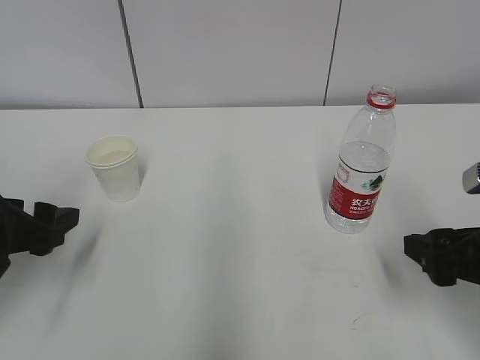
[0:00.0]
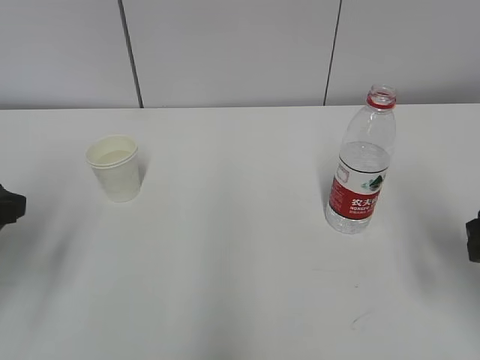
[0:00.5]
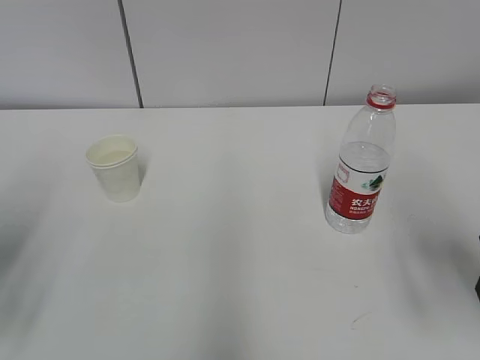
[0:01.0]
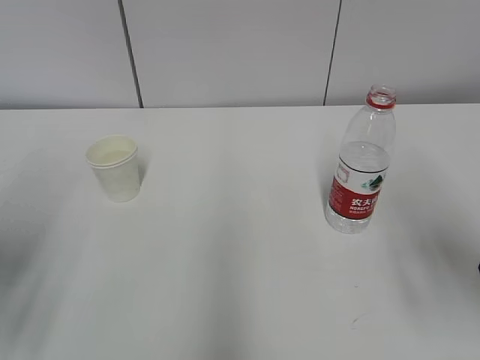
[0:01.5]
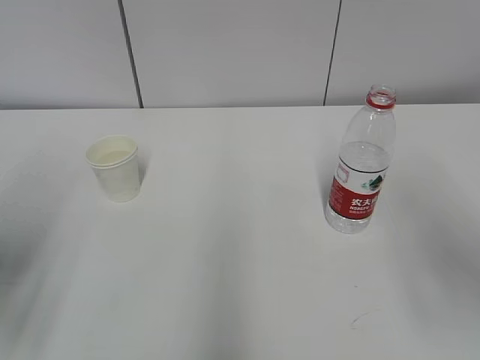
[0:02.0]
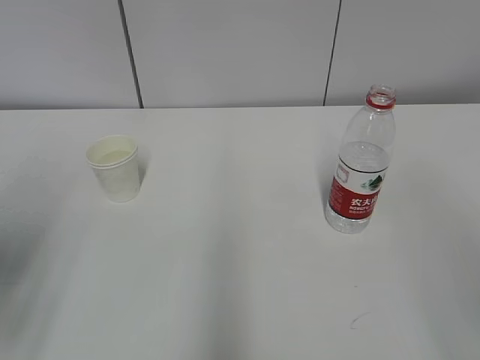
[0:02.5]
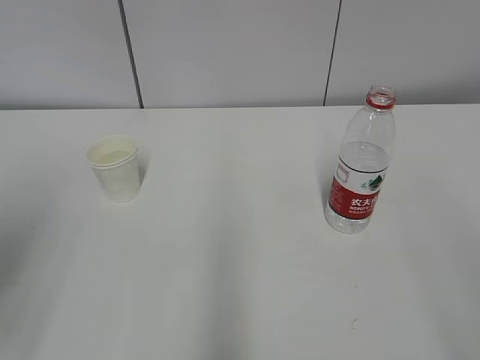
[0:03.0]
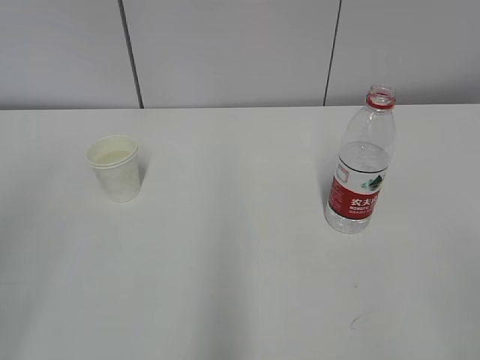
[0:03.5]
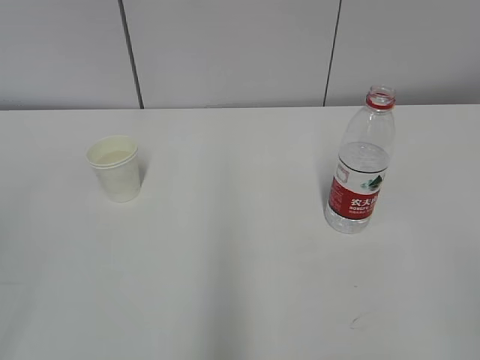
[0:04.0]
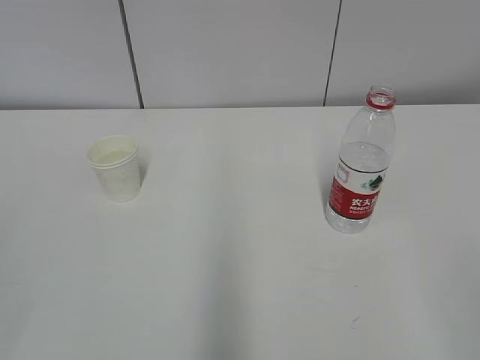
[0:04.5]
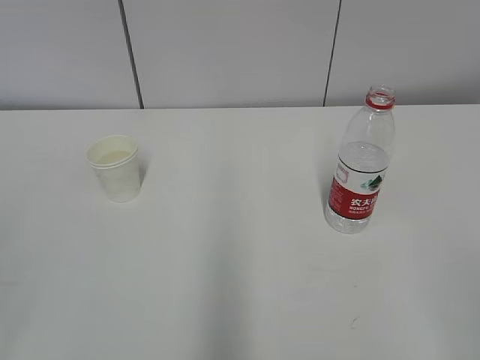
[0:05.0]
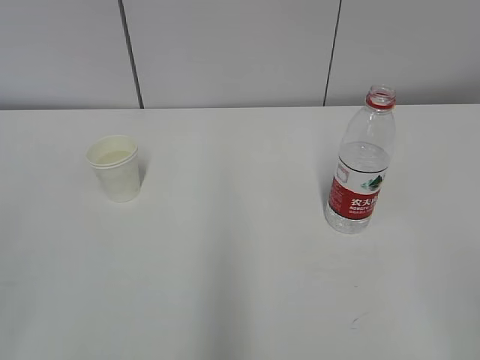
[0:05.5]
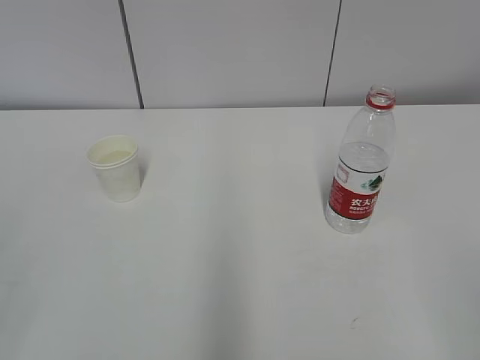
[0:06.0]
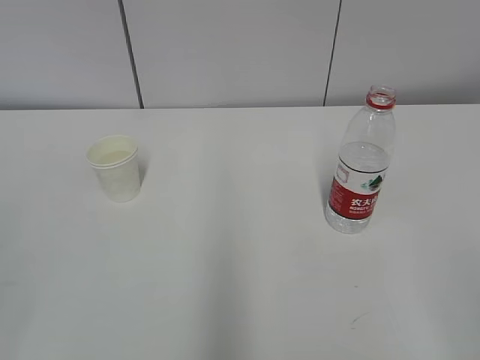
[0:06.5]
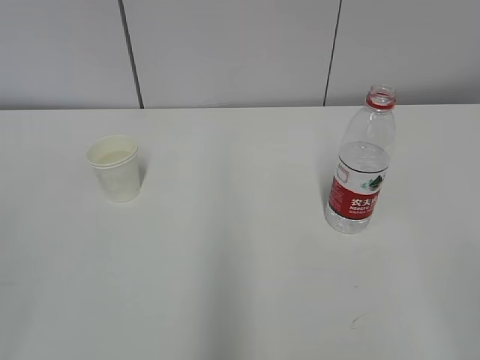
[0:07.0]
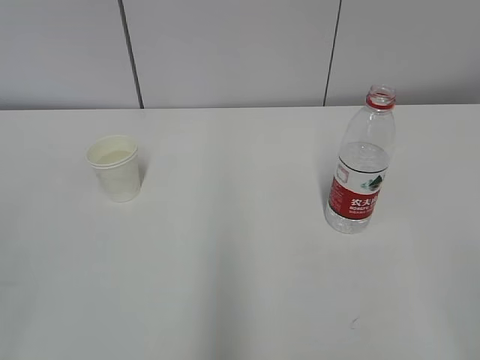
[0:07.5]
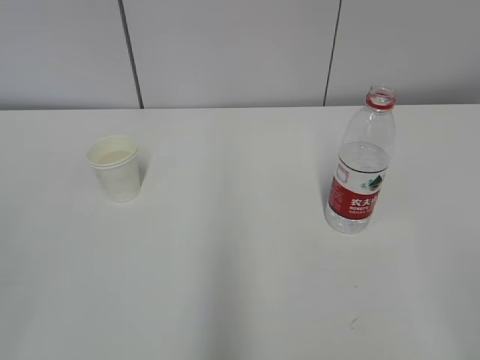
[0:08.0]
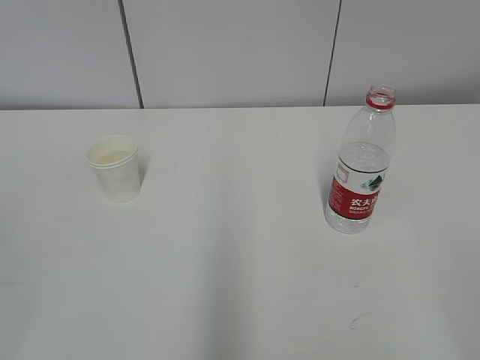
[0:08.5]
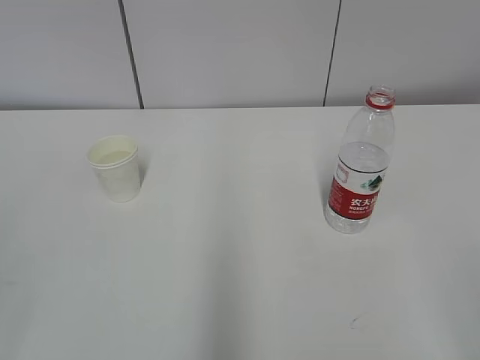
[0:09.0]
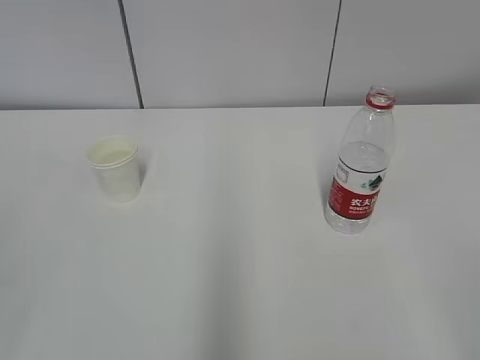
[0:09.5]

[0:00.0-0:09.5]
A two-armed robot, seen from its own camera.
0:00.0 to 0:02.0: The right gripper shifts roughly 15 cm upward, while the left gripper goes approximately 10 cm upward and backward.
0:02.0 to 0:04.0: The left gripper goes roughly 15 cm backward.
0:05.5 to 0:09.5: Both grippers stay about where they are.

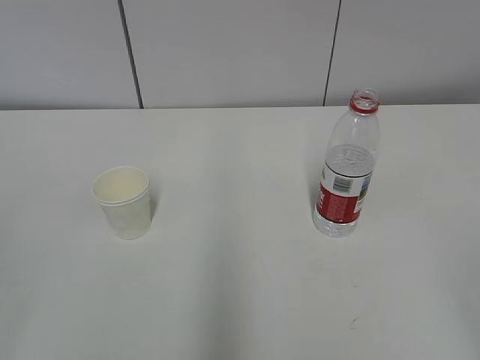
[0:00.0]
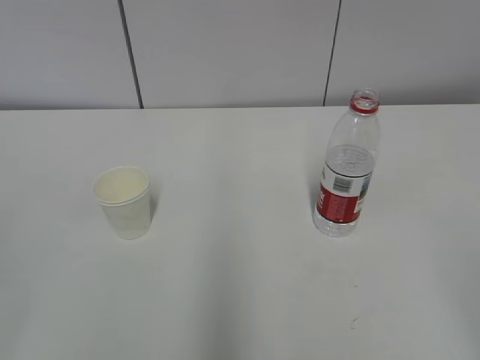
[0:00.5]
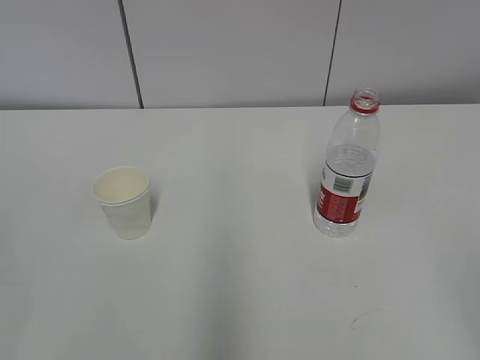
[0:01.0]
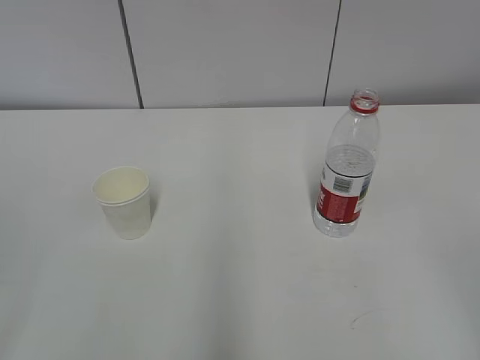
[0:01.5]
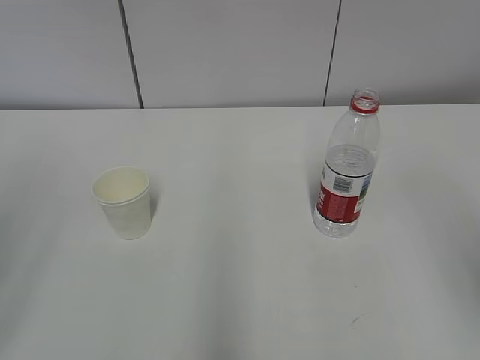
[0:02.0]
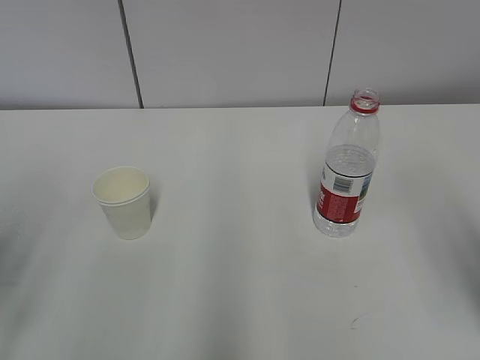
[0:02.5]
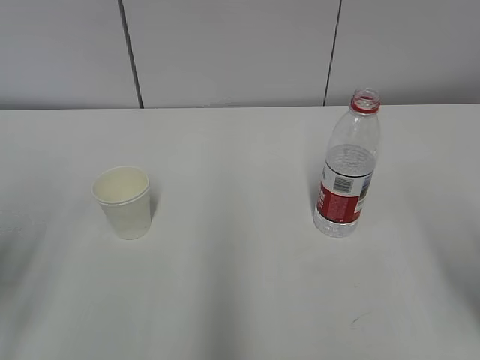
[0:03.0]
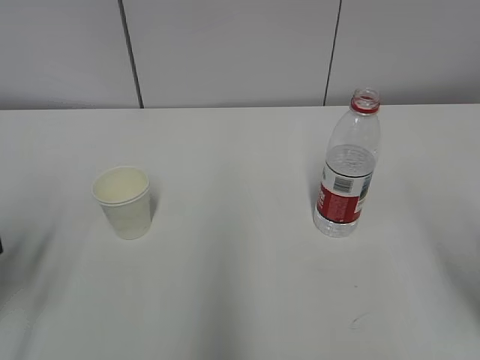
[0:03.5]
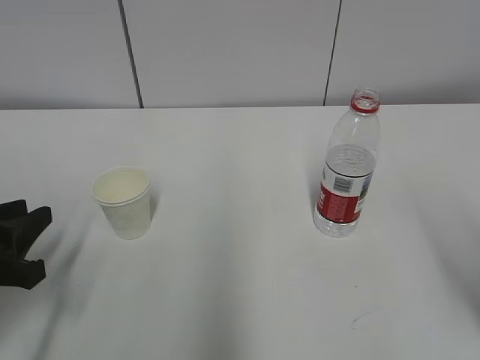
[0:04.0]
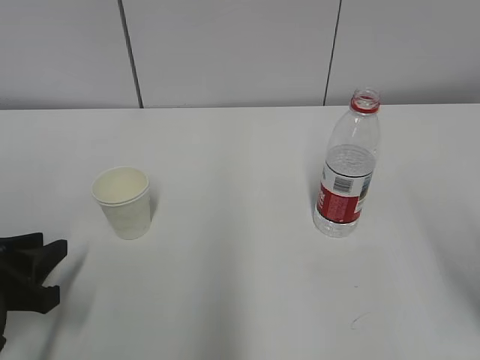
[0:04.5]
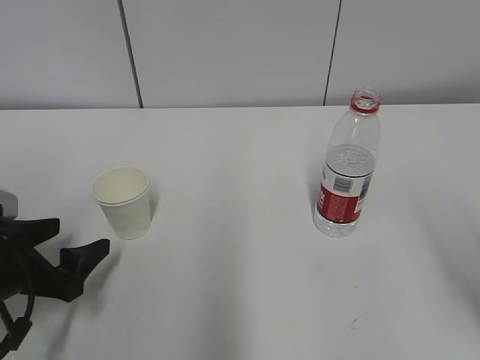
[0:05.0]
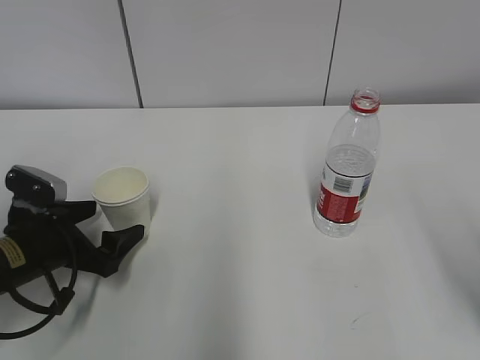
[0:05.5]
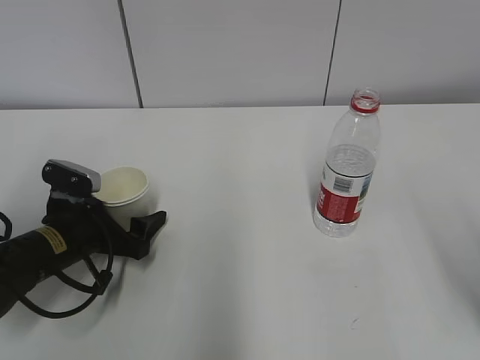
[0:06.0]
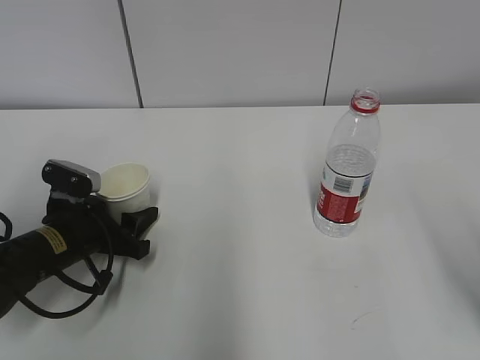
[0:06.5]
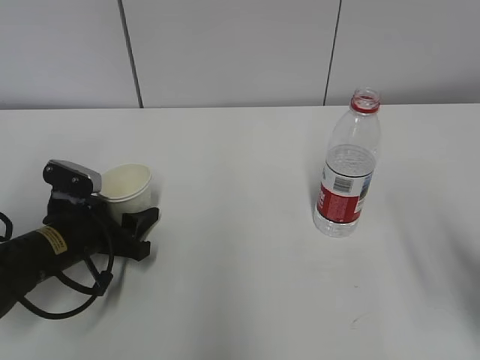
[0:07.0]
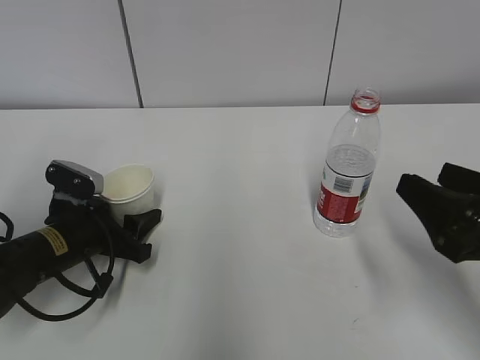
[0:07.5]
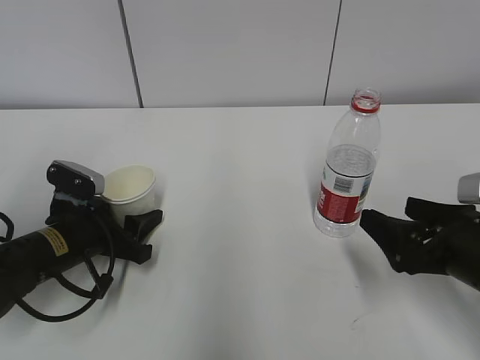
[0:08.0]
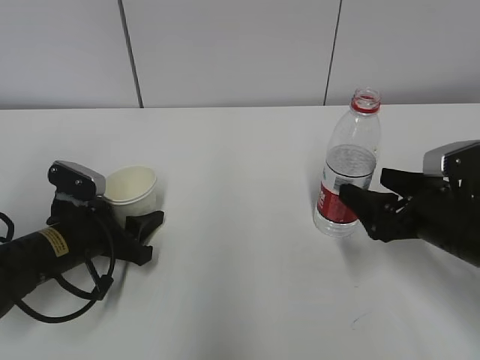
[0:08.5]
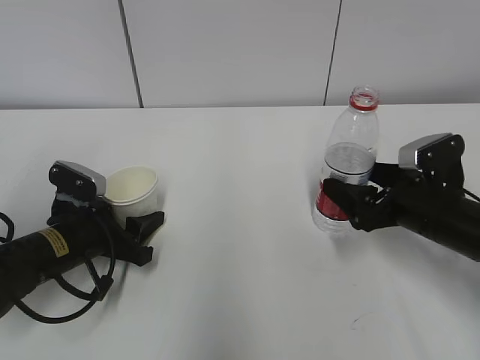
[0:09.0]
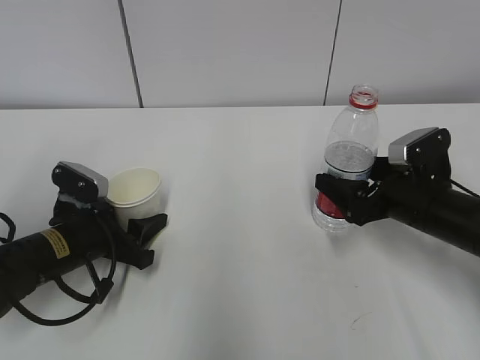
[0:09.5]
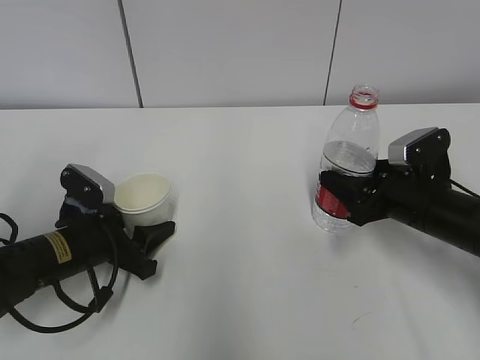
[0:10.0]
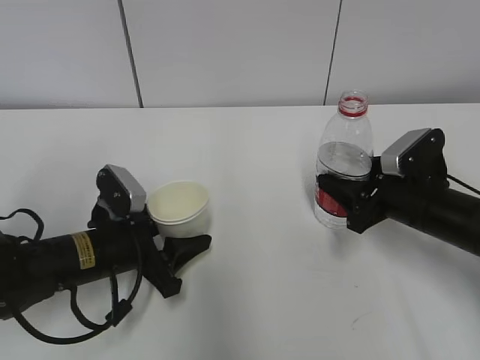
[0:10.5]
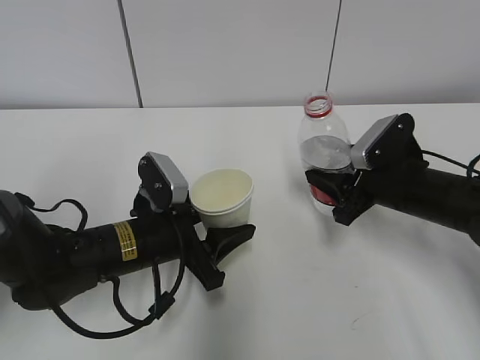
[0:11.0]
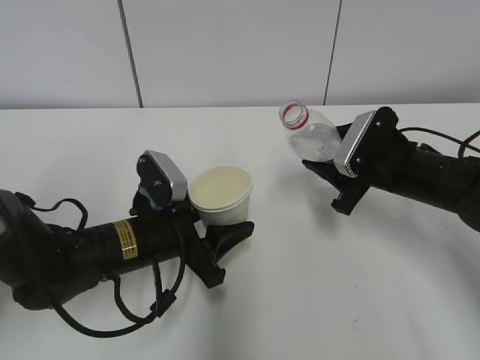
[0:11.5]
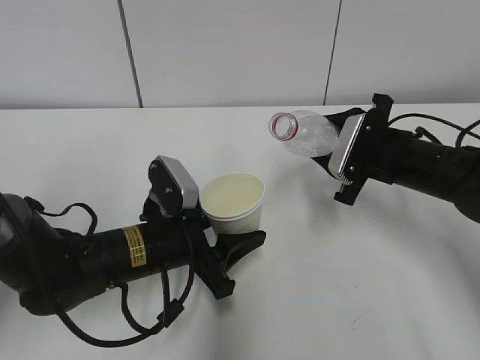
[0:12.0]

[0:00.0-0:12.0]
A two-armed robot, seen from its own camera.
Step, 0:00.0 to 0:05.5: Grab the paper cup with the left hand.
Step, 0:06.0 to 0:08.0: Grab the water bottle with the right hand.
Step, 0:08.5 to 0:11.5: Lift the paper cup with the left hand.
0:02.0 to 0:04.0: The left gripper heads downward and forward, covering about 20 cm.
0:04.0 to 0:06.0: The left gripper shifts about 15 cm forward, downward and to the right, and opens.
0:06.0 to 0:08.0: The right gripper goes approximately 15 cm downward and forward, and opens up, while the left gripper closes.
0:08.0 to 0:10.0: The right gripper heads forward, covering about 10 cm, and closes.
0:10.0 to 0:12.0: The right gripper changes place by some 5 cm; the left gripper travels to the right by about 10 cm.

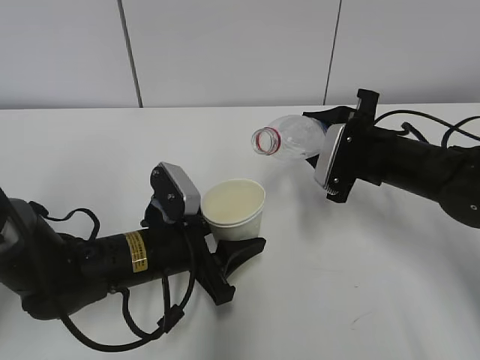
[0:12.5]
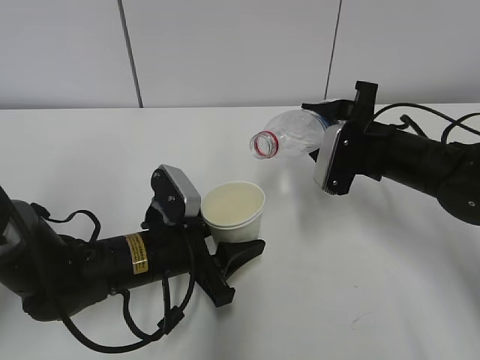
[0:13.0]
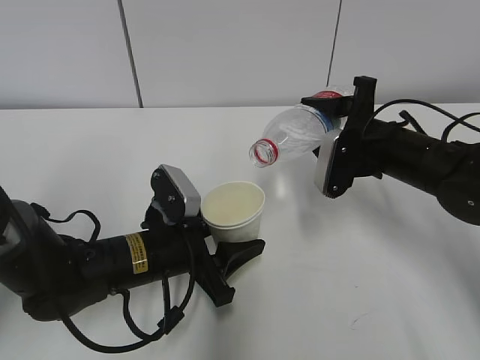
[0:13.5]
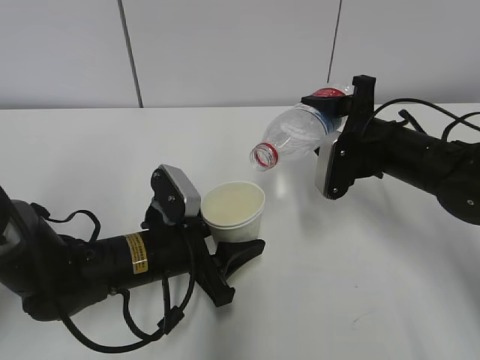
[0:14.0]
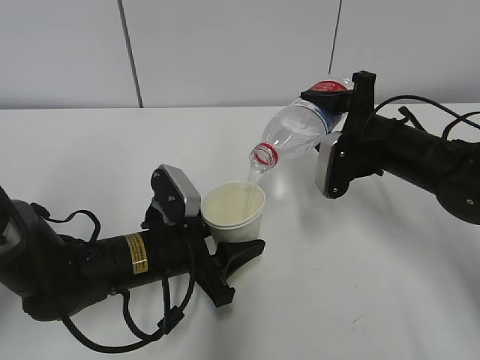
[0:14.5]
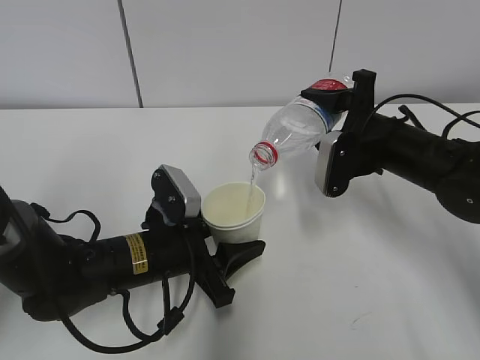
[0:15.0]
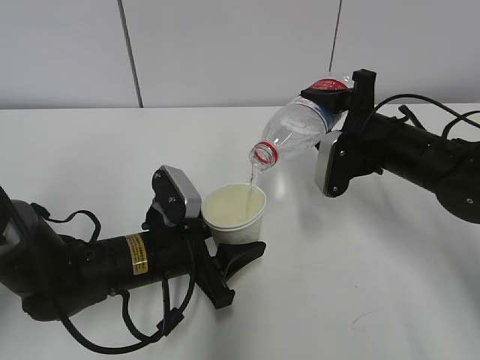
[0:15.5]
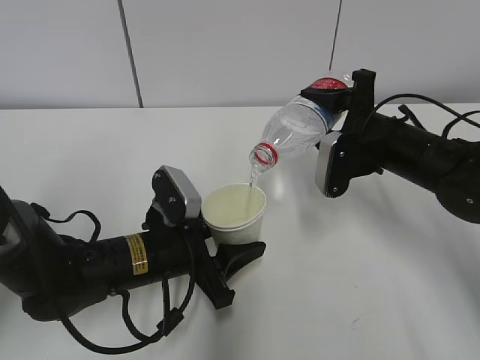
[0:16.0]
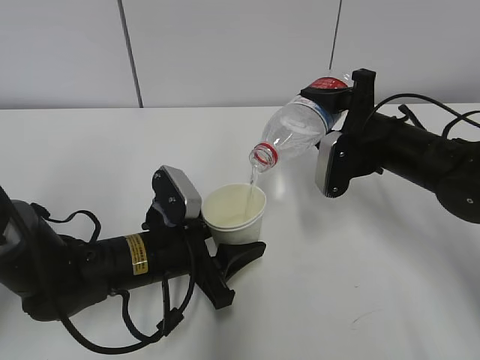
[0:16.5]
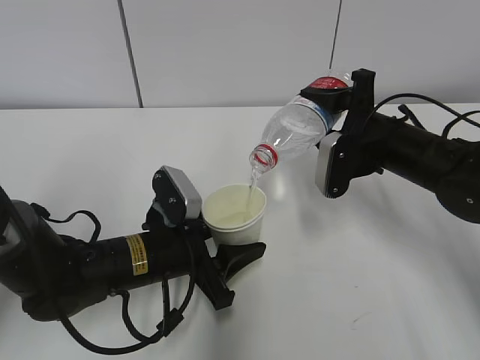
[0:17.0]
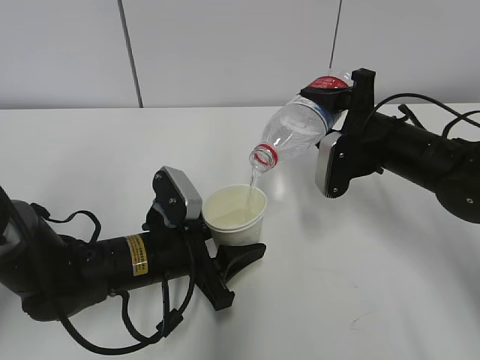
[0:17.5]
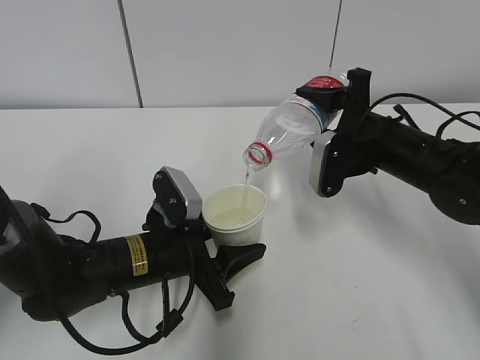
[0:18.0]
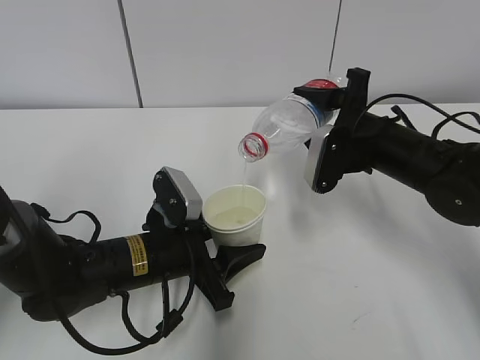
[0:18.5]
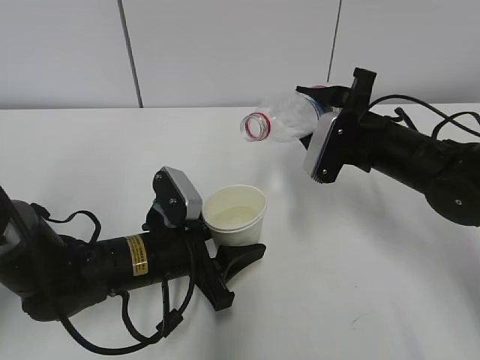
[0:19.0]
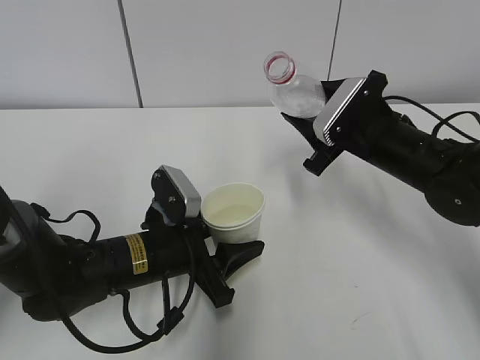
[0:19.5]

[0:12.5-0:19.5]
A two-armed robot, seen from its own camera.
Step, 0:12.5 to 0:15.0: Fill water with the left hand.
Step, 0:12.5 to 0:15.0: Pour water with the right hand.
0:14.5 to 0:17.5: Neither gripper changes place.
